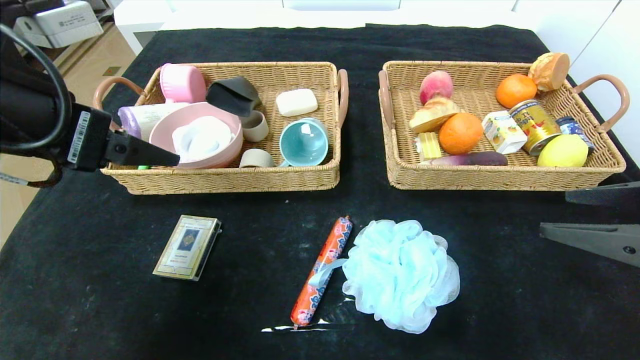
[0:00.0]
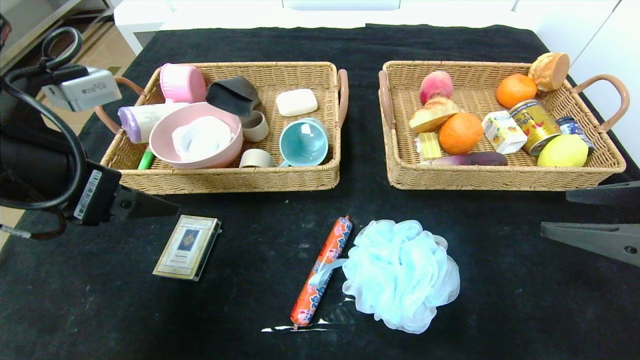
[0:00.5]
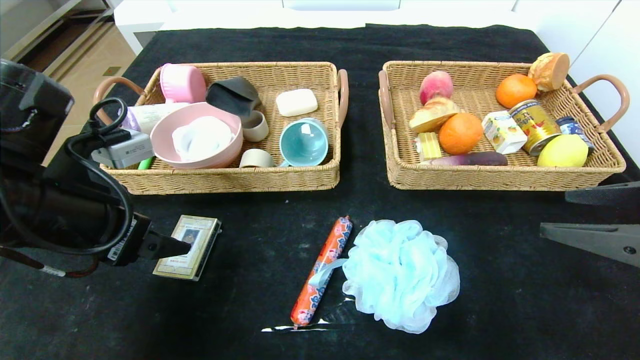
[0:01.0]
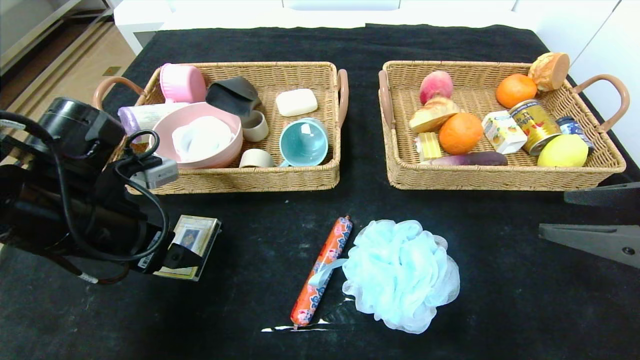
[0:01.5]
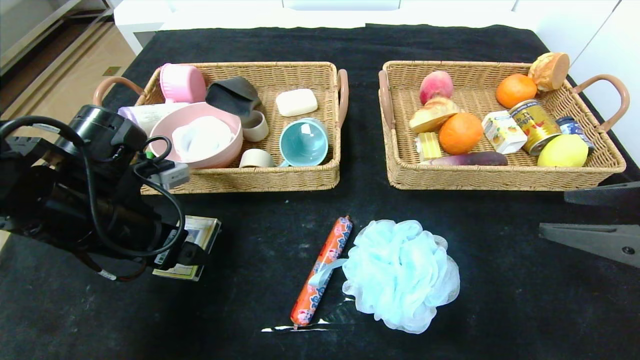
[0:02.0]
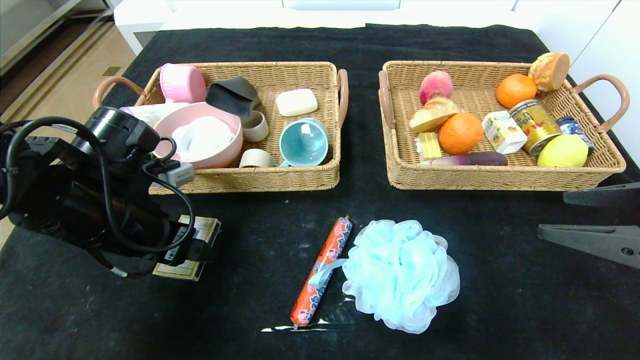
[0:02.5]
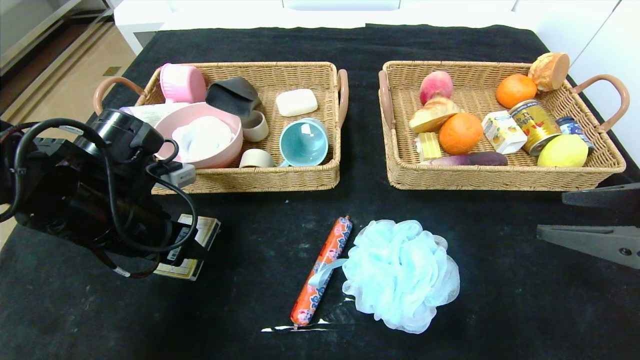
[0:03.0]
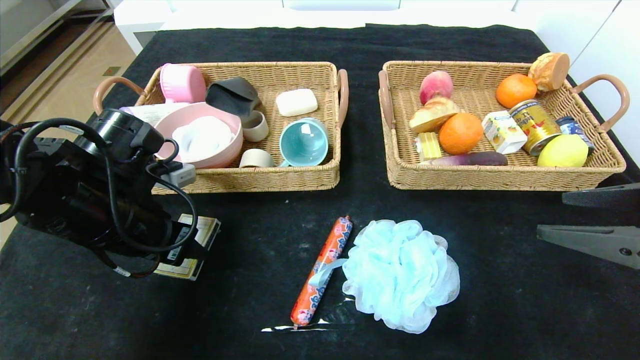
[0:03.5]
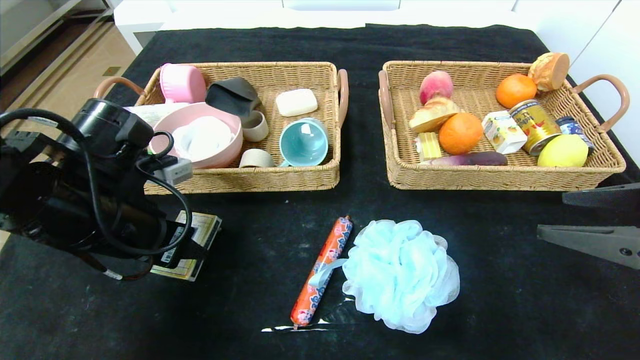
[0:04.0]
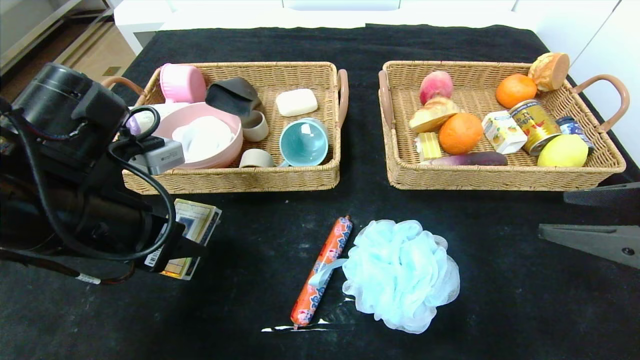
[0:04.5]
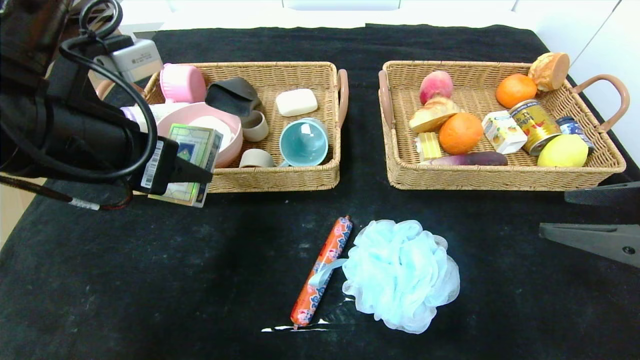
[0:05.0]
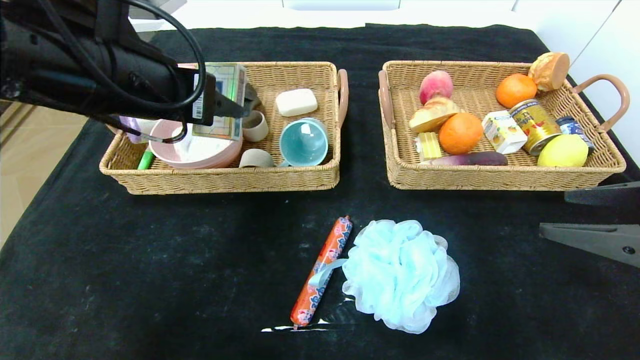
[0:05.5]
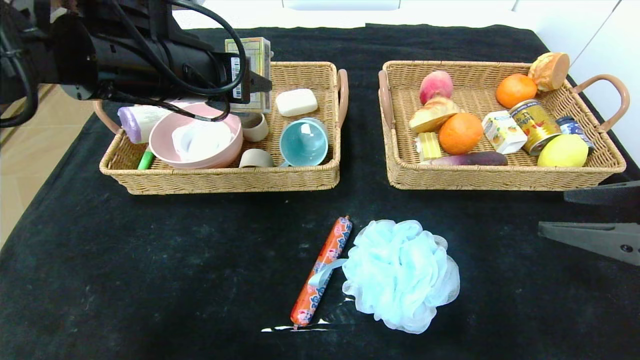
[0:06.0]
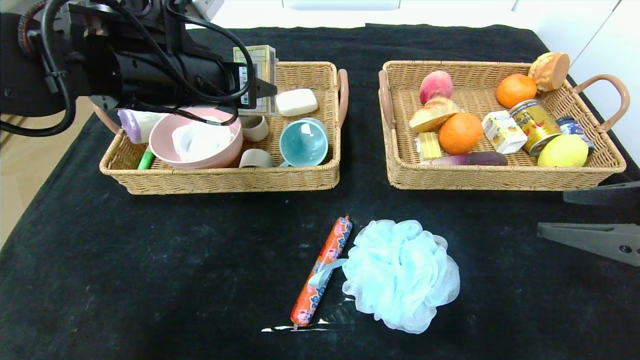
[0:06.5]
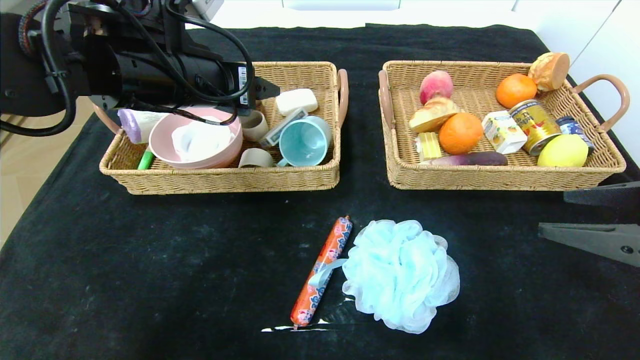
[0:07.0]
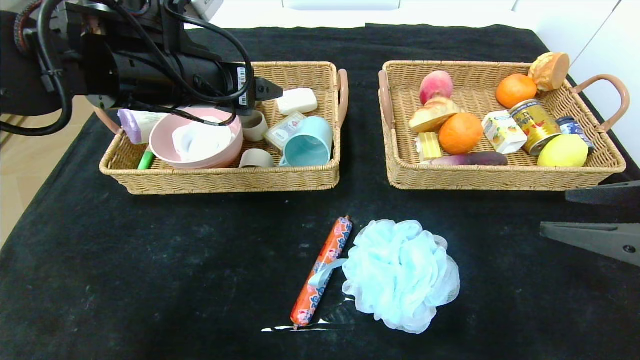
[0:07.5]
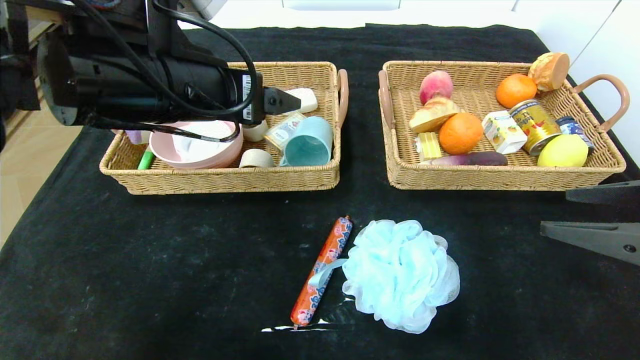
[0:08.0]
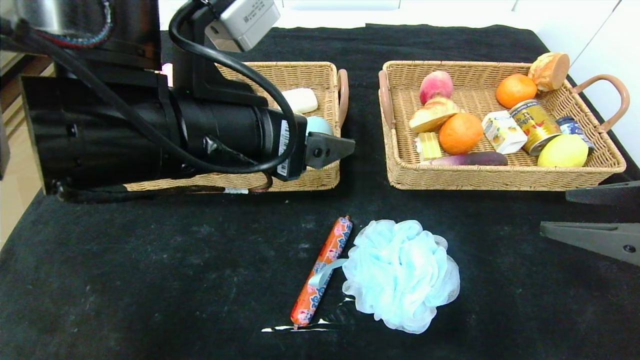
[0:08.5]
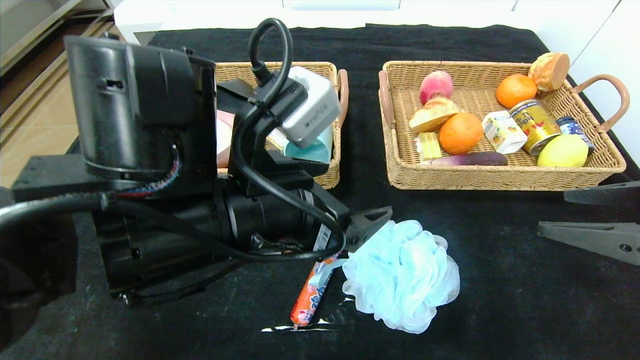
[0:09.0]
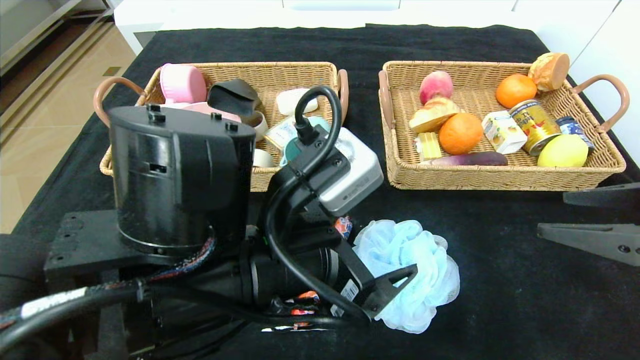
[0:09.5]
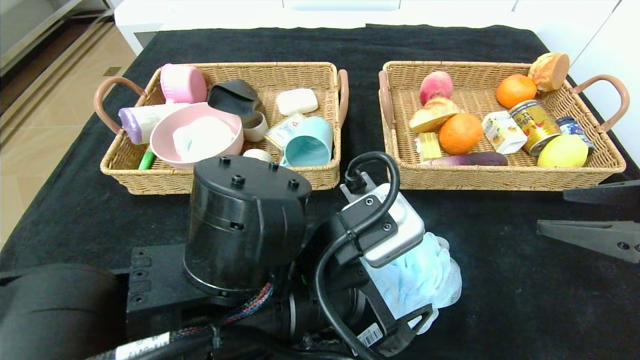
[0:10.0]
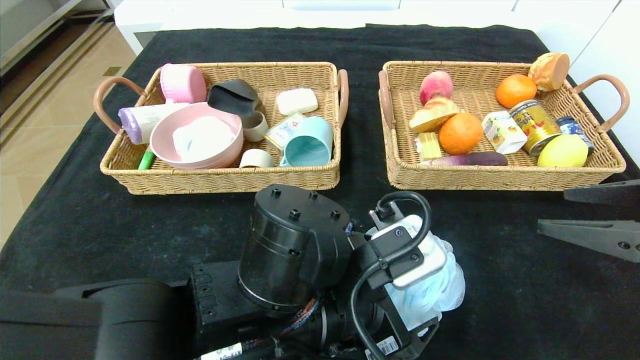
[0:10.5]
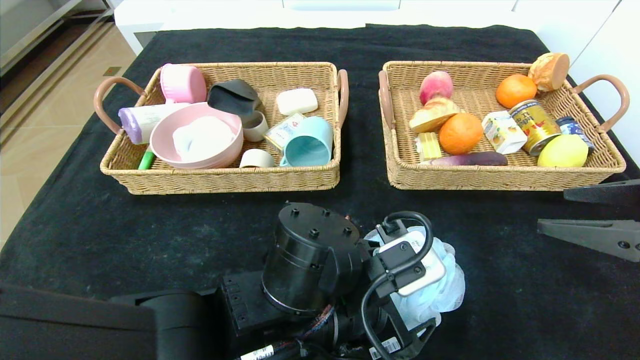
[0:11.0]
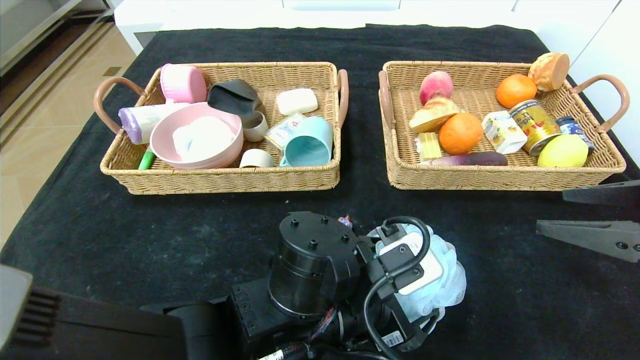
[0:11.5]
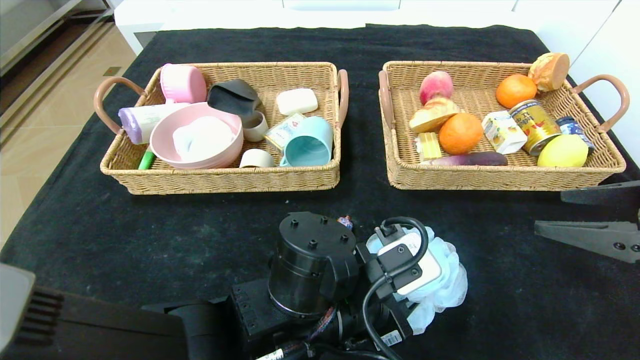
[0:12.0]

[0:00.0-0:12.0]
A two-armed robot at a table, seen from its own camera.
Step, 0:00.0 to 0:07.0: Grasp the playing cards and put it in the left basket.
0:00.0 to 0:02.0: The left gripper shifts about 10 cm downward.
0:02.0 to 0:04.0: The left gripper closes up.
0:04.0 to 0:06.0: The left gripper is displaced upward, to the right and forward by roughly 15 cm.
0:06.0 to 0:08.0: The left gripper opens.
0:08.0 to 0:10.0: The left gripper shifts some 20 cm downward, to the right and backward.
0:10.0 to 0:12.0: The left gripper moves downward, some 5 cm, and closes up.

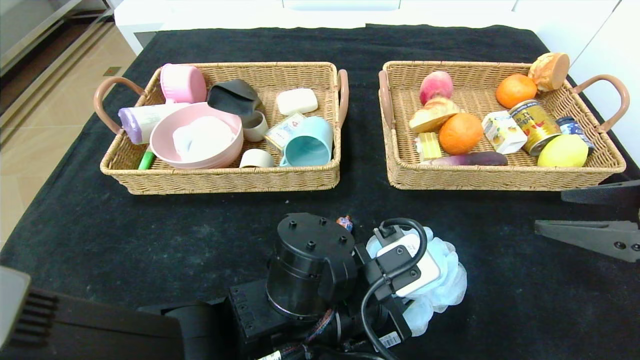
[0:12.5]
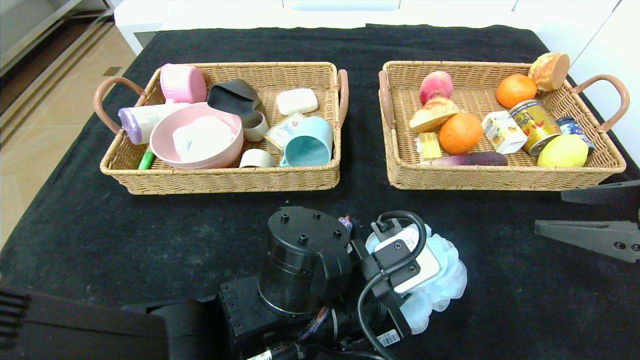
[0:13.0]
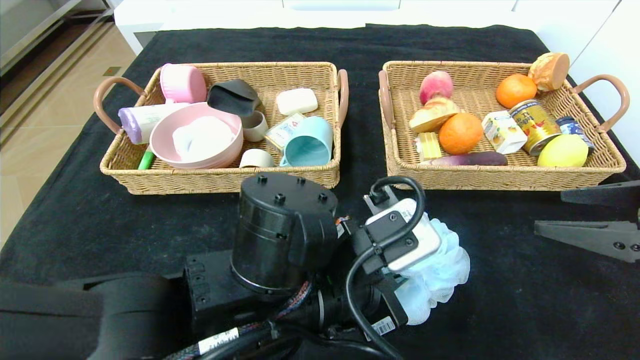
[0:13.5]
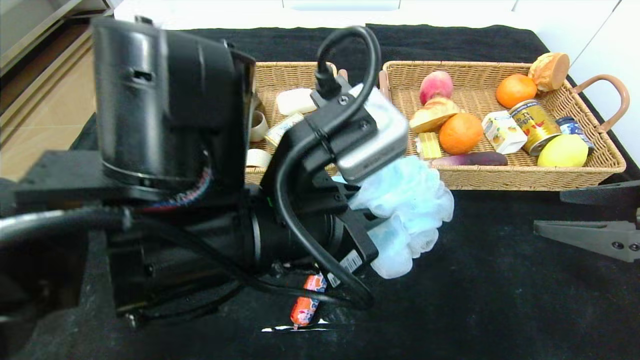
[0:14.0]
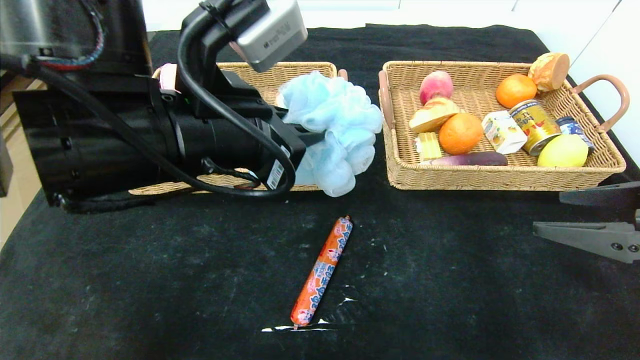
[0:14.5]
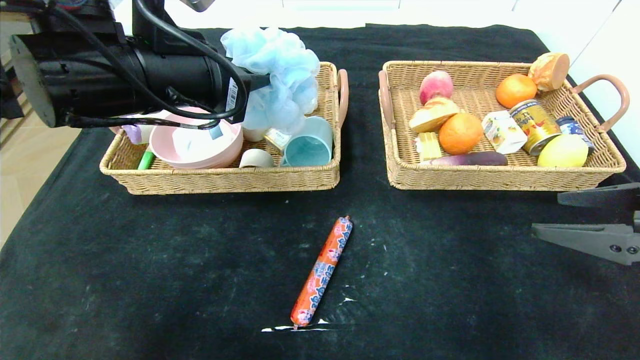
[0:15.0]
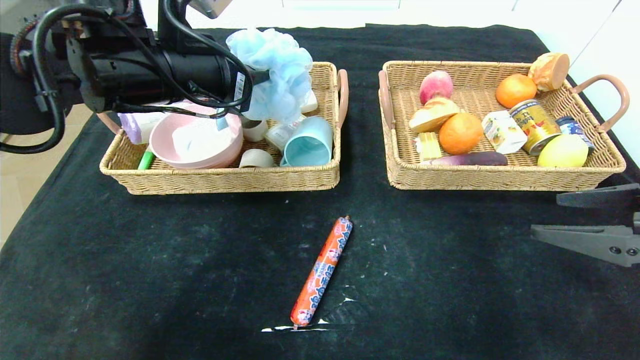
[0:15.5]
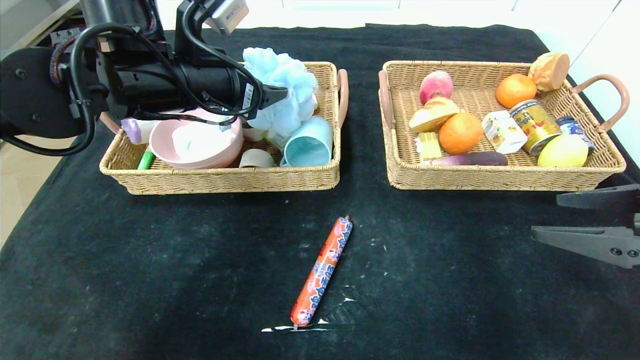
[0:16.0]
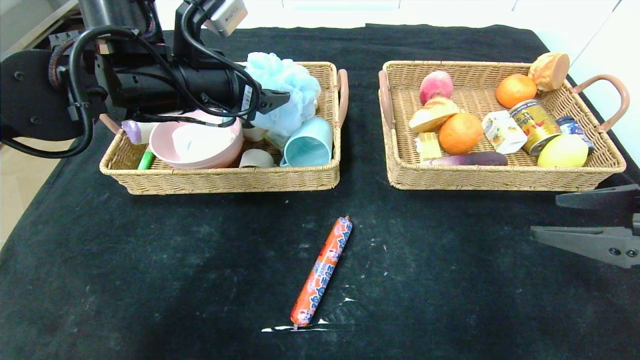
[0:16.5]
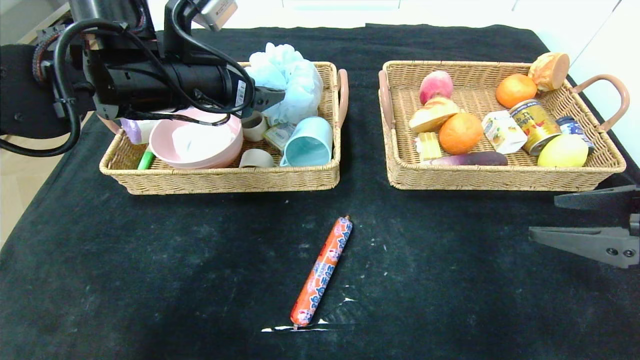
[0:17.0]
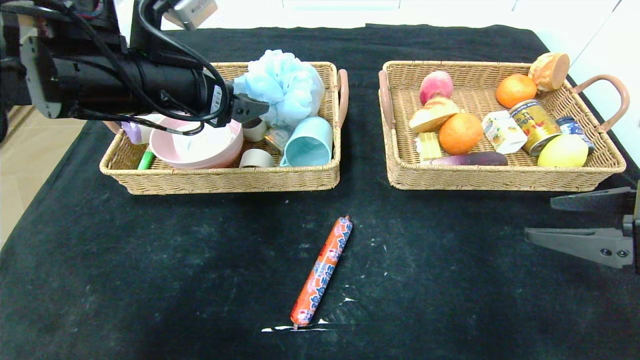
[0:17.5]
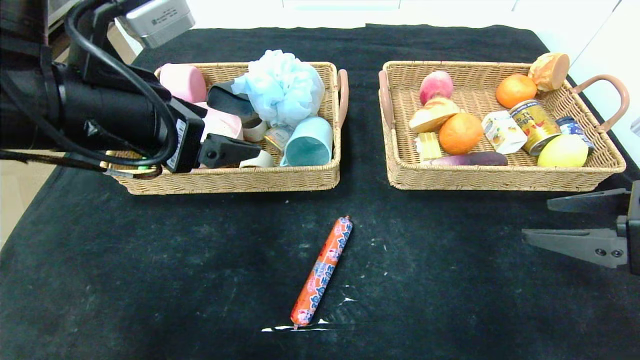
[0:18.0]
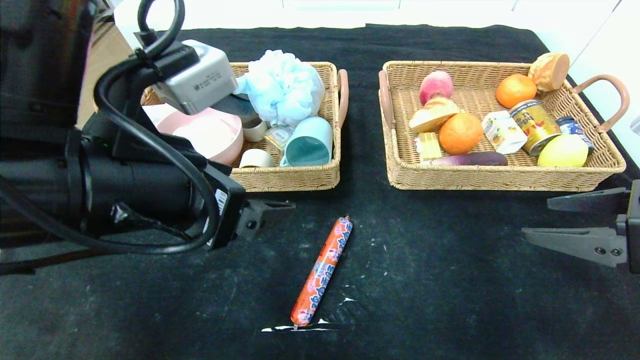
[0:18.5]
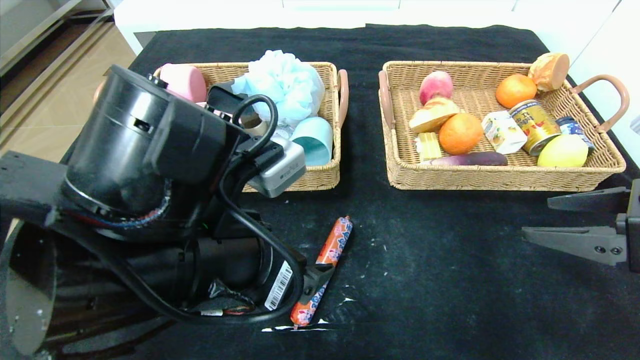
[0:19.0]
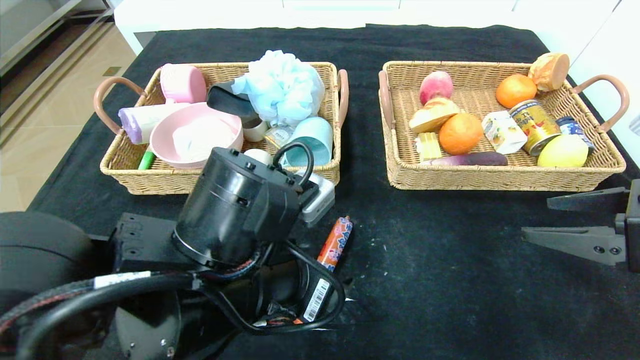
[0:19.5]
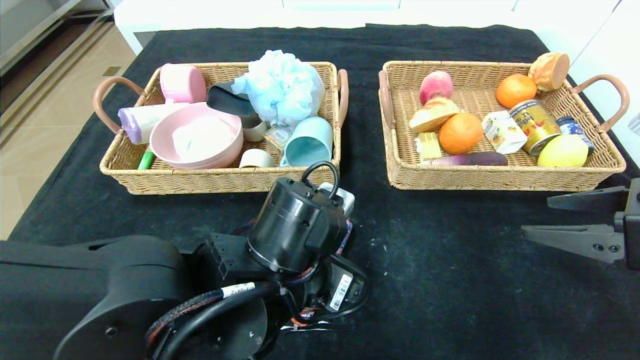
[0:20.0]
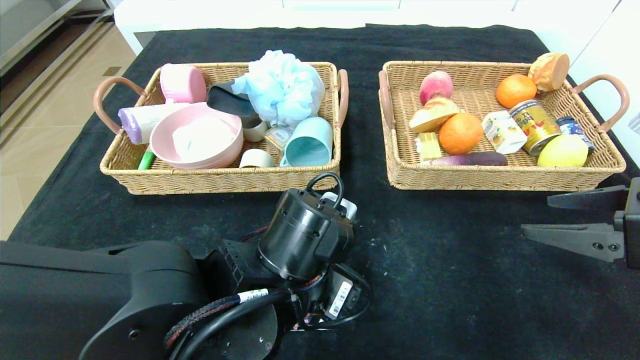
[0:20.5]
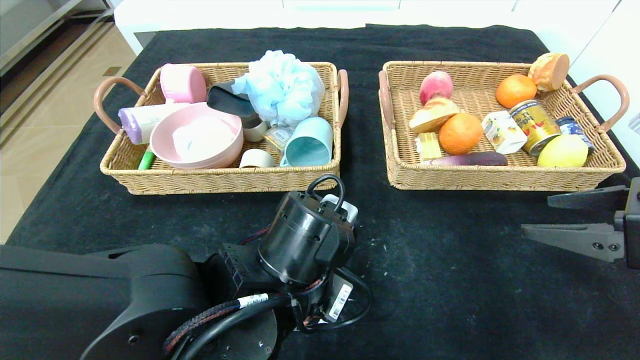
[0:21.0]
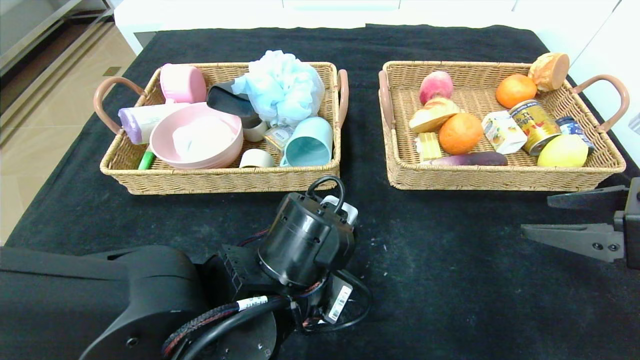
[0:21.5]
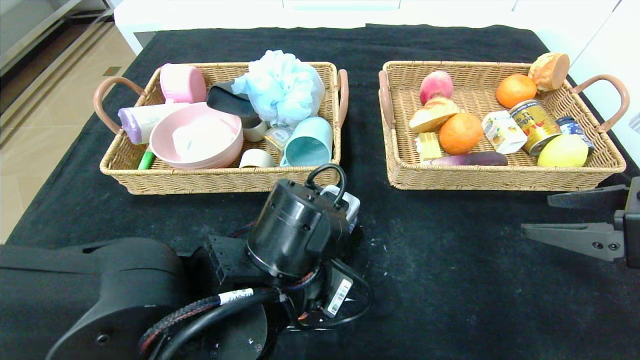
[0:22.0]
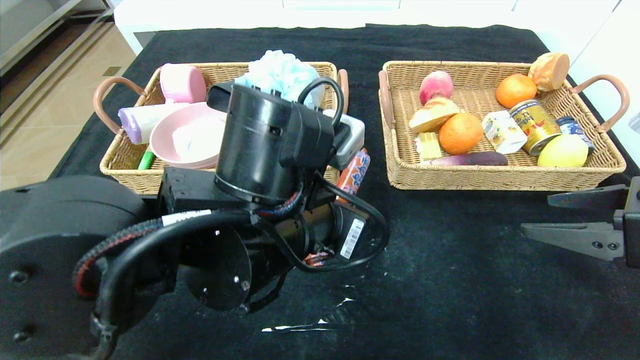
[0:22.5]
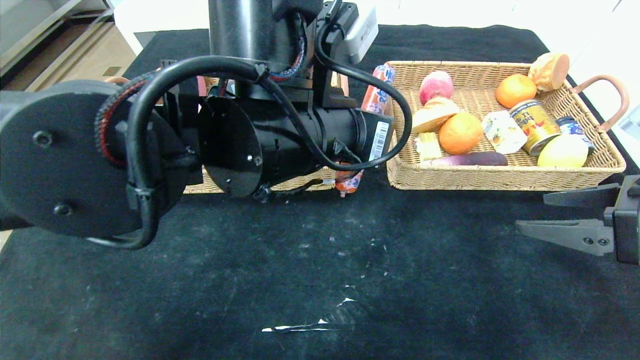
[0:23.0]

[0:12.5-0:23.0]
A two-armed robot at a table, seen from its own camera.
Step, 0:12.5 to 0:16.5: Grasp the bath ball and put it in the left basket.
0:12.5 to 0:14.5: The left gripper moves upward and to the left, roughly 20 cm.
0:14.5 to 0:16.5: The left gripper is displaced forward and to the left by some 15 cm, and opens its fingers.
0:16.5 to 0:19.0: The left gripper travels backward, downward and to the right by approximately 20 cm.
0:19.0 to 0:21.0: The left gripper heads downward and to the right, covering about 10 cm, and closes up.
0:21.0 to 0:23.0: The left gripper travels upward by some 15 cm.
